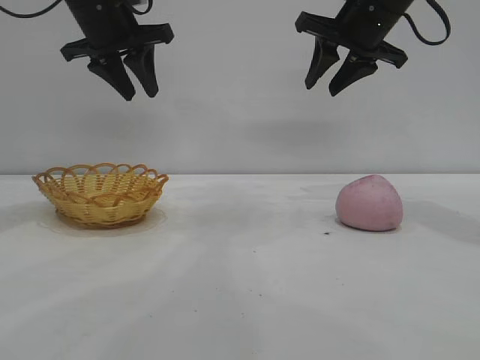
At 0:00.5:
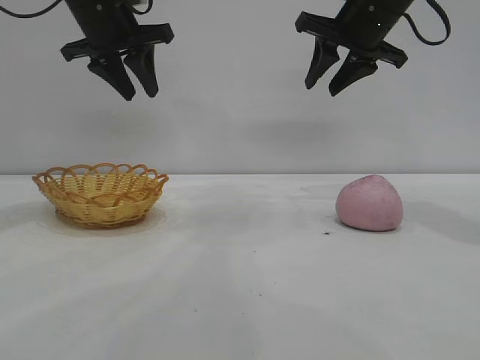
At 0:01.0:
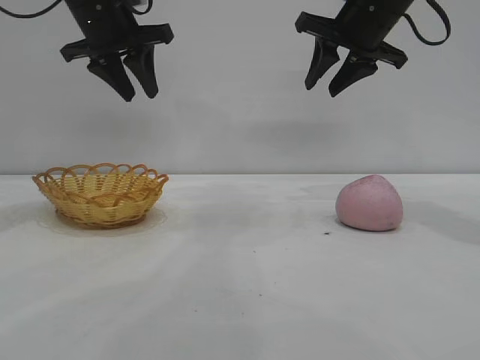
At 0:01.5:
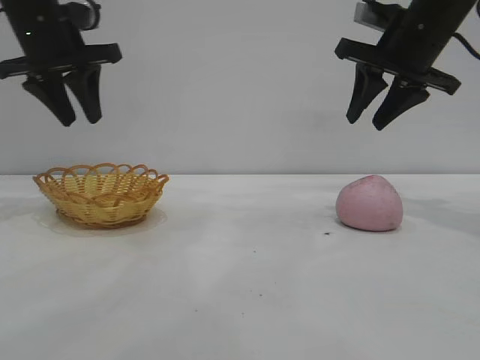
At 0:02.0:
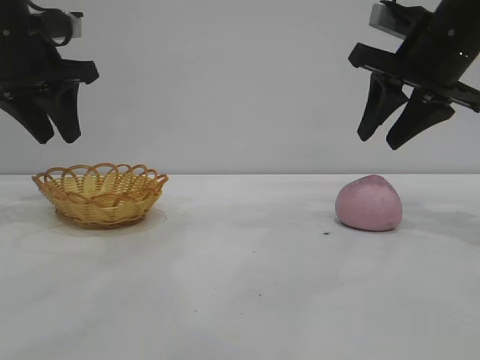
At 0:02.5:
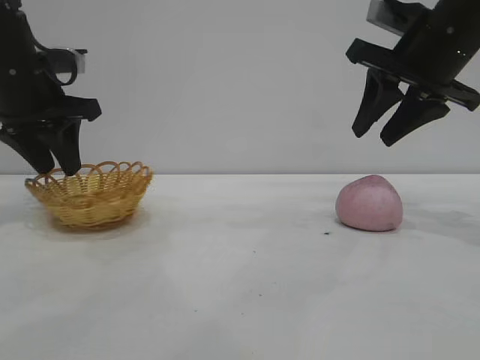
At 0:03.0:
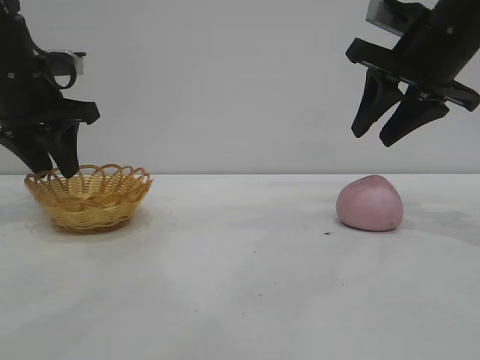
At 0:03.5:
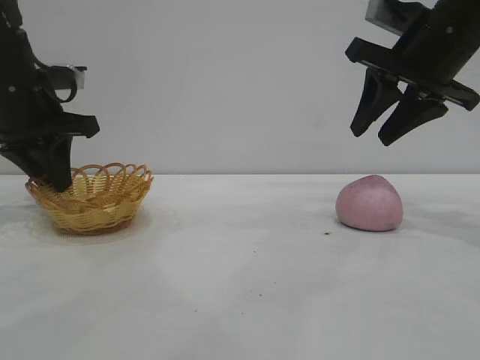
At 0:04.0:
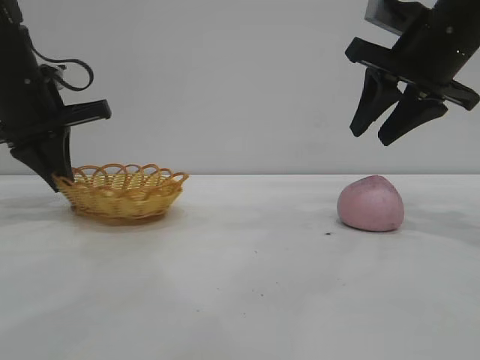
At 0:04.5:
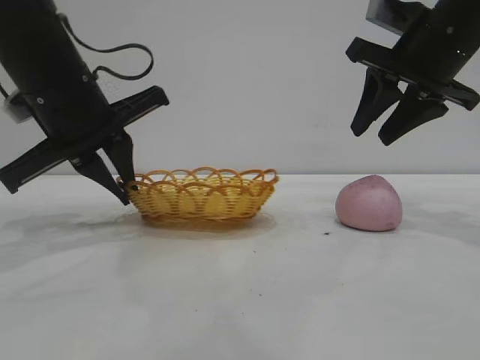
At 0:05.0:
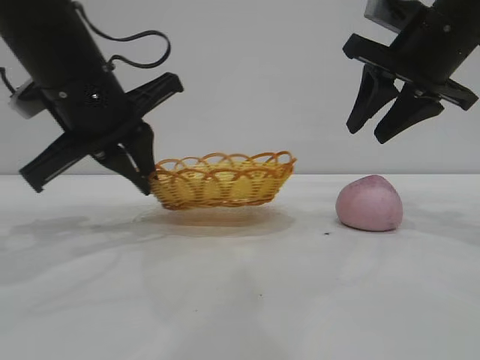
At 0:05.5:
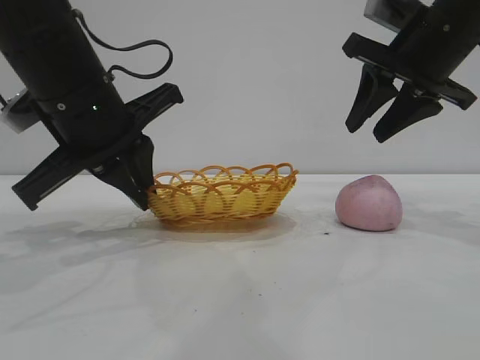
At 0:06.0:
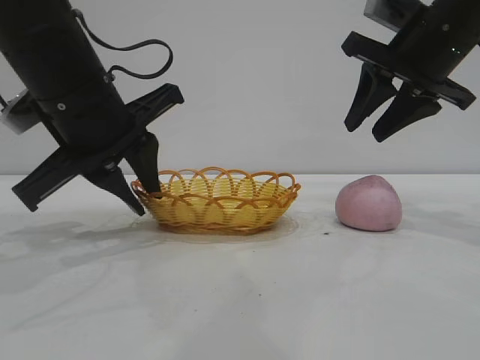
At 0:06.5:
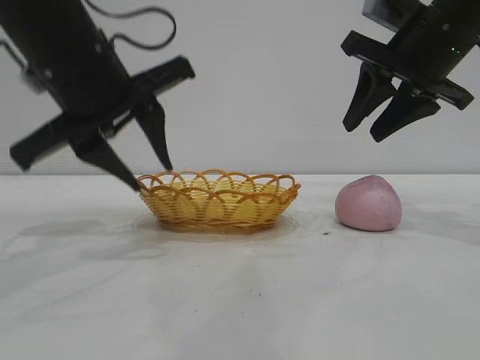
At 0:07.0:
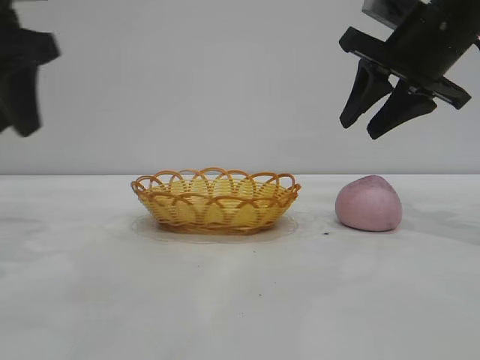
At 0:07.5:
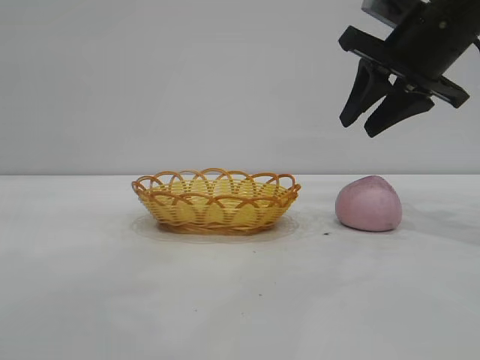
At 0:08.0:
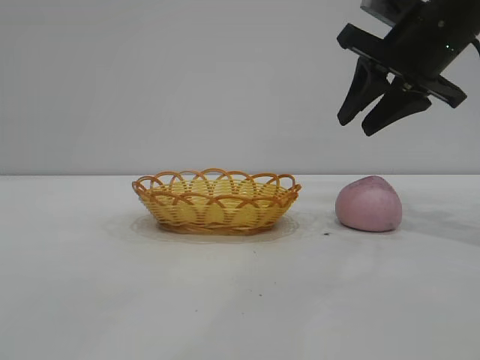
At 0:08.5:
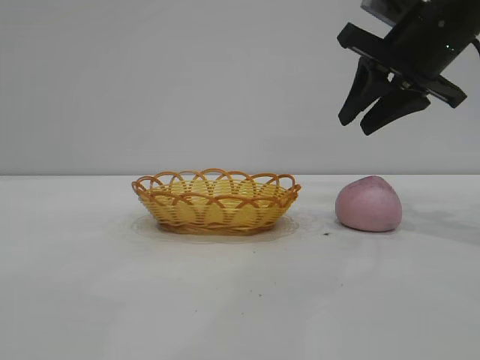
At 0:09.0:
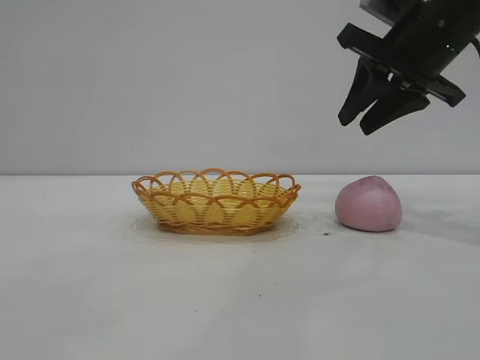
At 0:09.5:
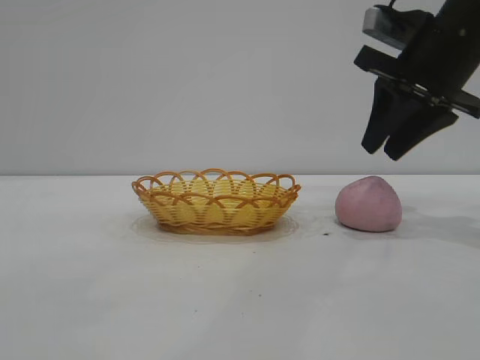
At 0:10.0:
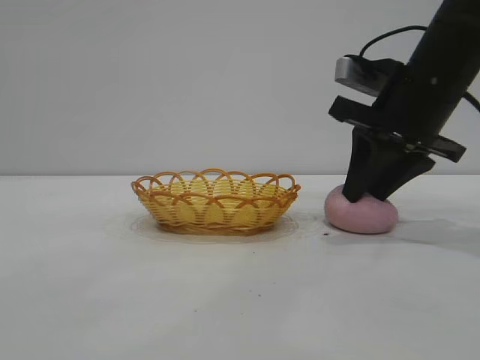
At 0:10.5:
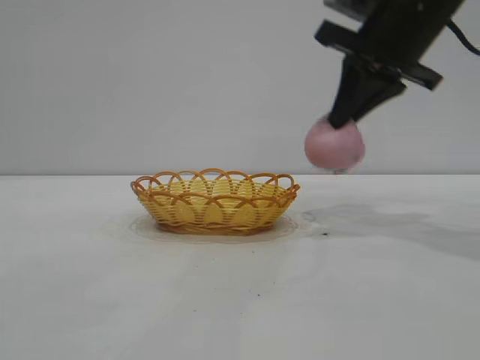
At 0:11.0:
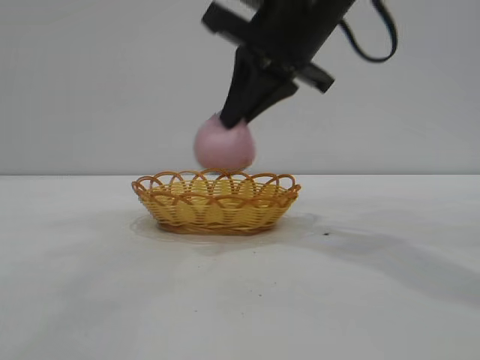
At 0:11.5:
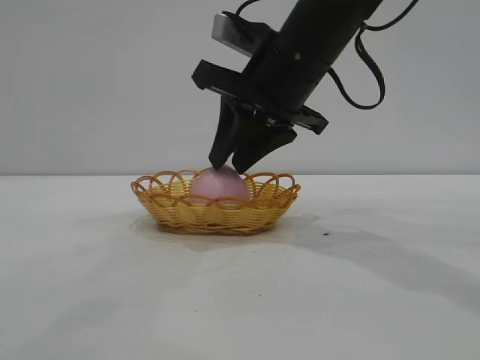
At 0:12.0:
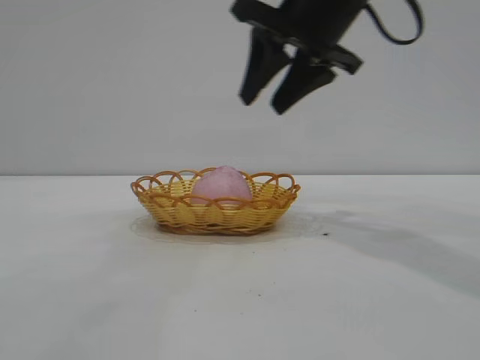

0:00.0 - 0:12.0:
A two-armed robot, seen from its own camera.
Task of the whole recording: pick up the peach and put it into the basket.
Step, 0:00.0 - 0:06.5: Move the basket to the center of view.
Step, 0:07.0 - 0:10.0: Pick up the peach.
Step, 0:11.0 - 0:11.5: place the peach into the basket.

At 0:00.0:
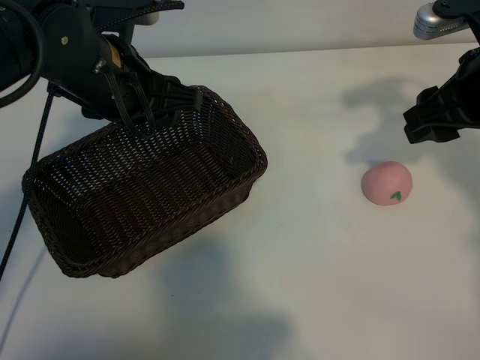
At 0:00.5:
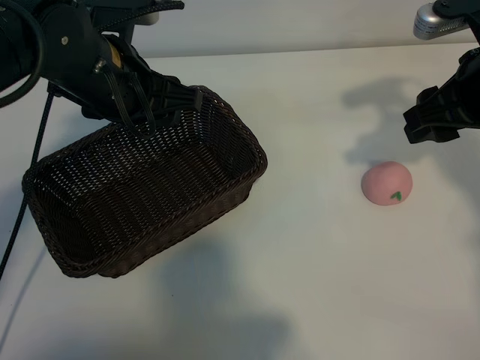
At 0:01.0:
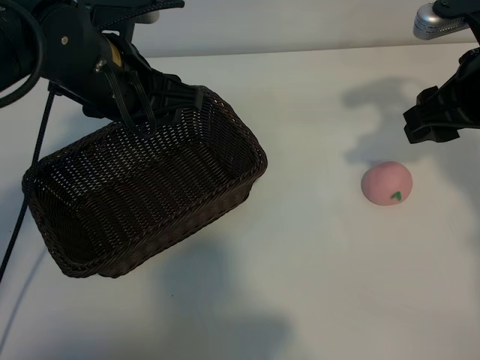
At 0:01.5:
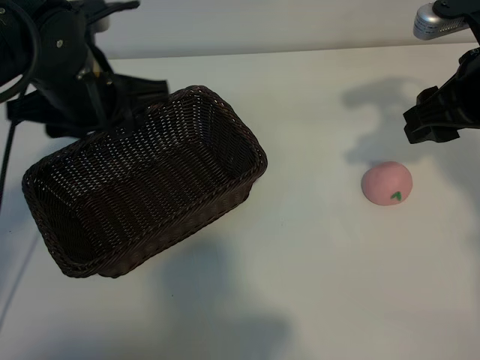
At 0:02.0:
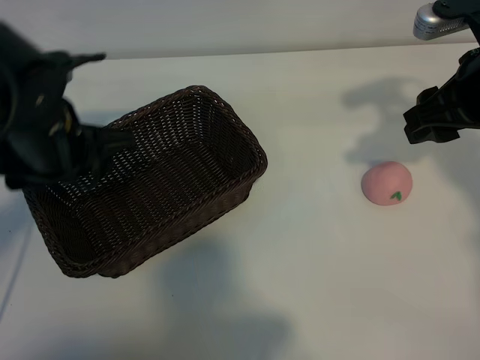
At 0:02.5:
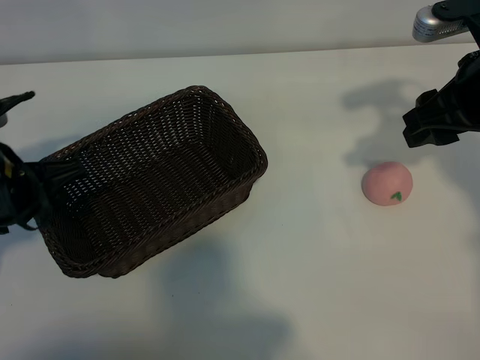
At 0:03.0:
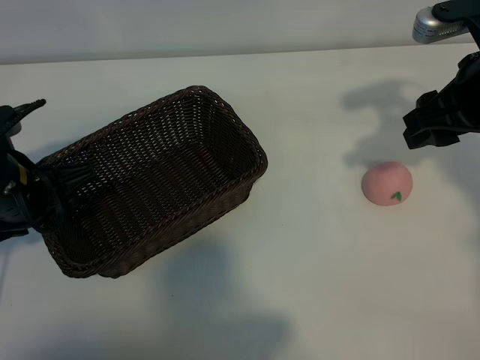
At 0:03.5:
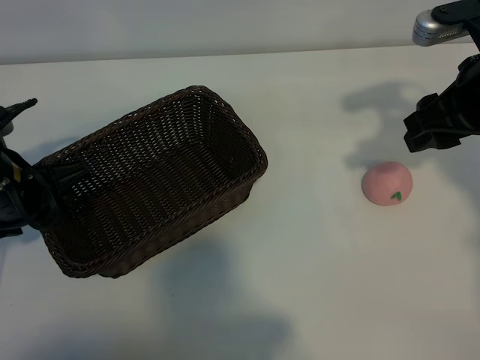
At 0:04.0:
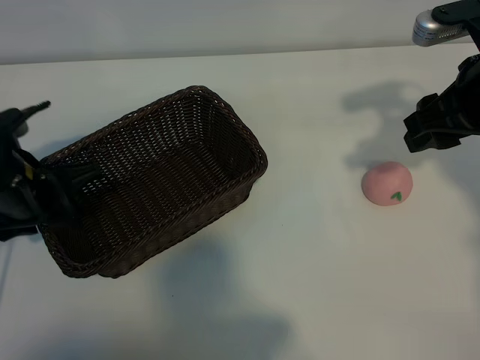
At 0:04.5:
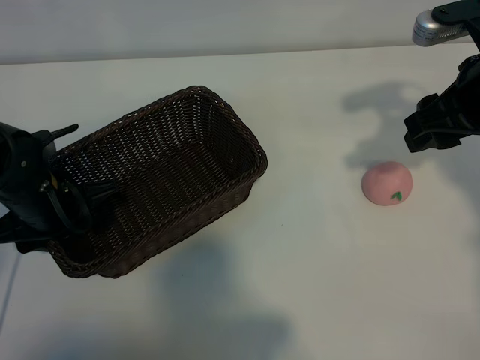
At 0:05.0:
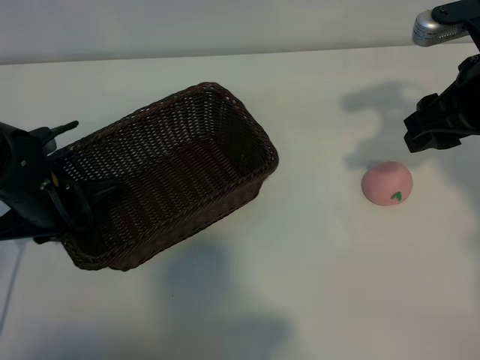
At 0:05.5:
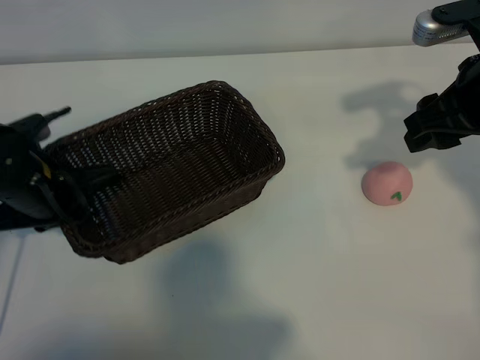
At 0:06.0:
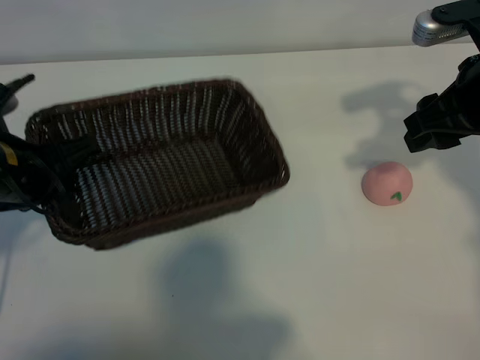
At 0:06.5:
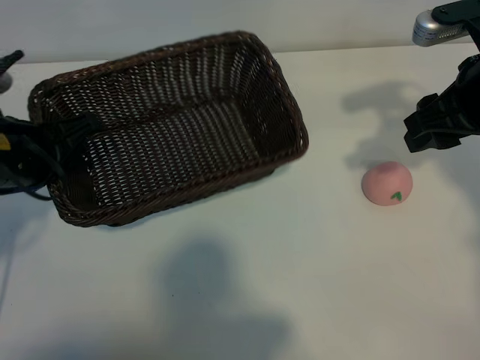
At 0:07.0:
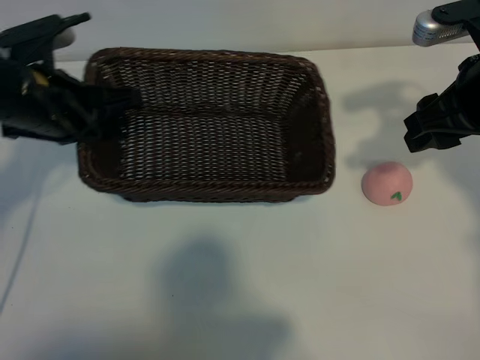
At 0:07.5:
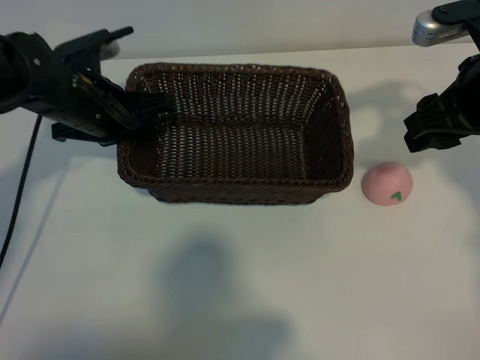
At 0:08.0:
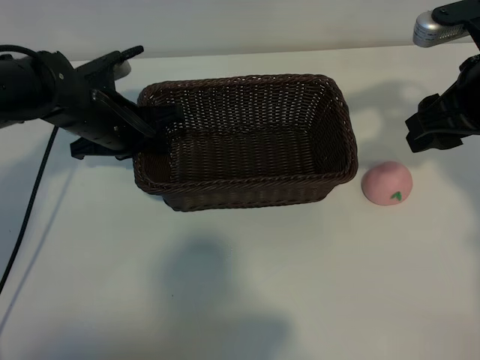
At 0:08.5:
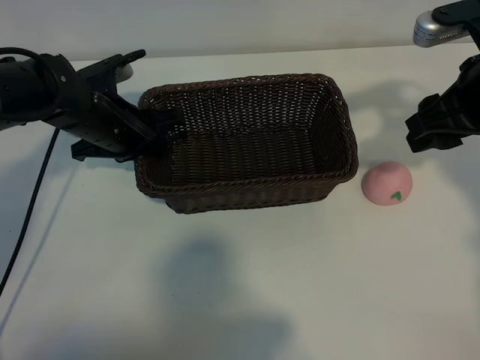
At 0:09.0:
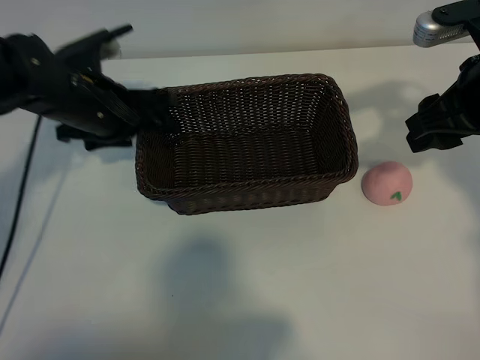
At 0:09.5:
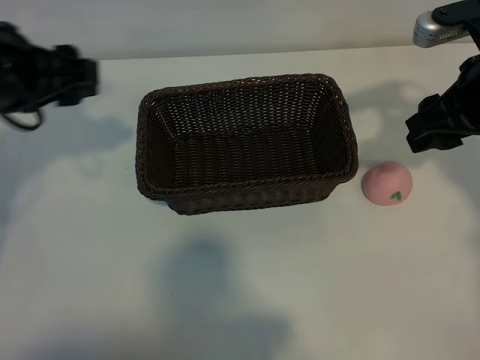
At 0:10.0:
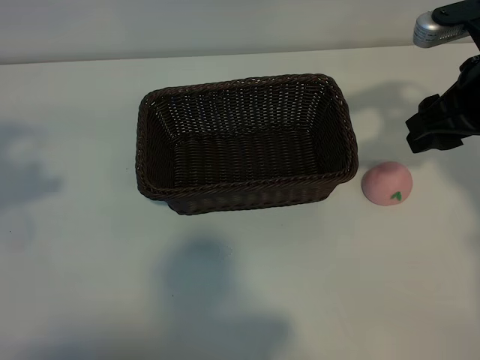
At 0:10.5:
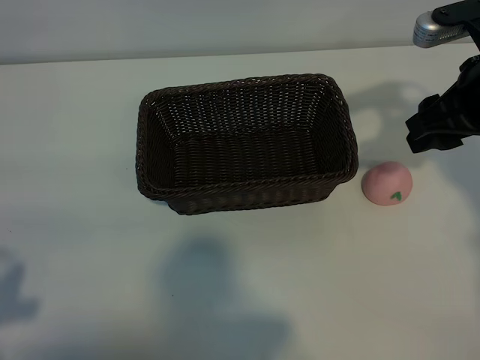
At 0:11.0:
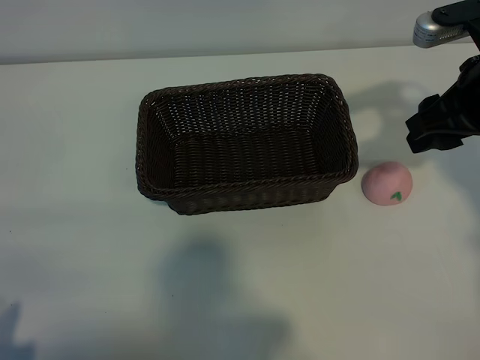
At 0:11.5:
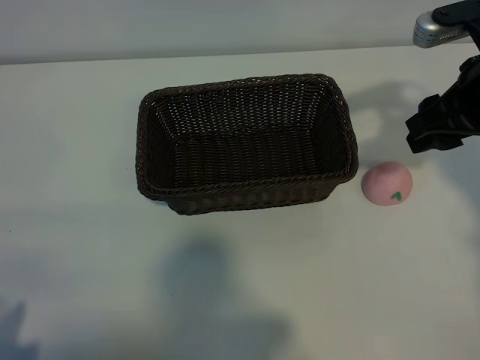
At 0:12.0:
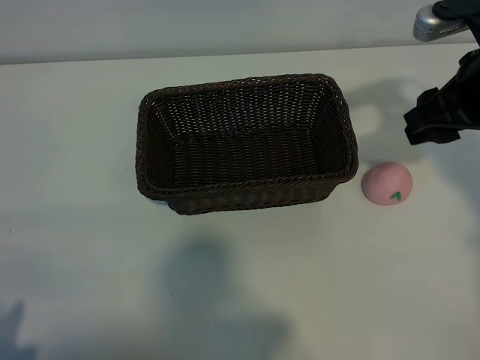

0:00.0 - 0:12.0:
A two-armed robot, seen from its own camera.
Task of the whole recording: pick up the peach and put it into the basket.
Step, 0:01.0 - 0:05.0: Grasp the basket with left gripper.
Step, 0:05.5 - 0:09.0: Place the basket in the center of view with left gripper.

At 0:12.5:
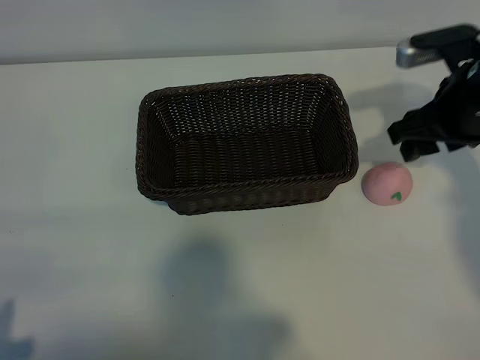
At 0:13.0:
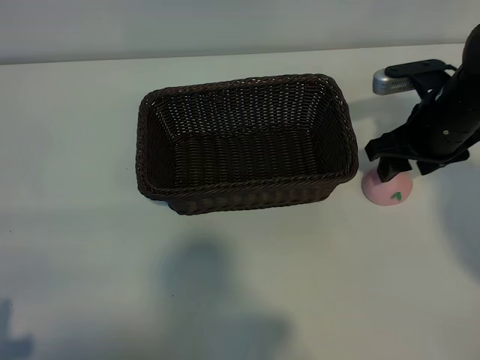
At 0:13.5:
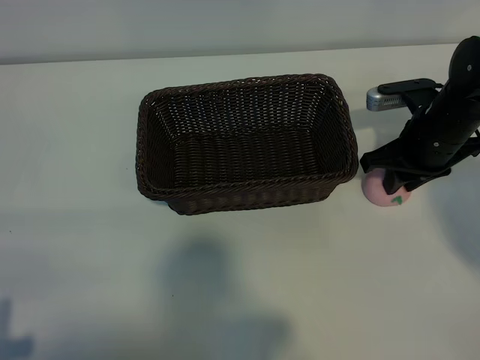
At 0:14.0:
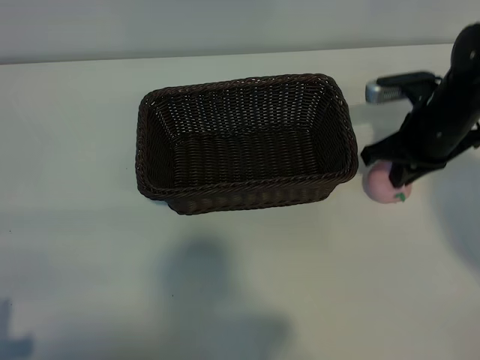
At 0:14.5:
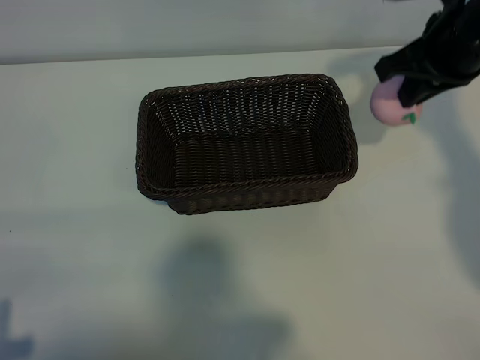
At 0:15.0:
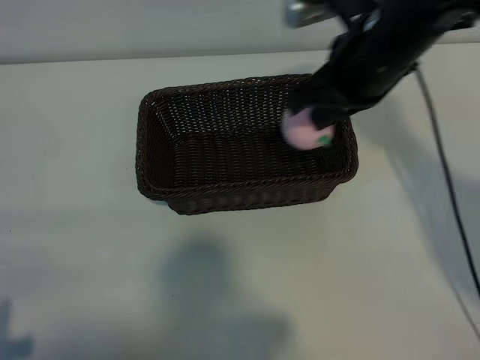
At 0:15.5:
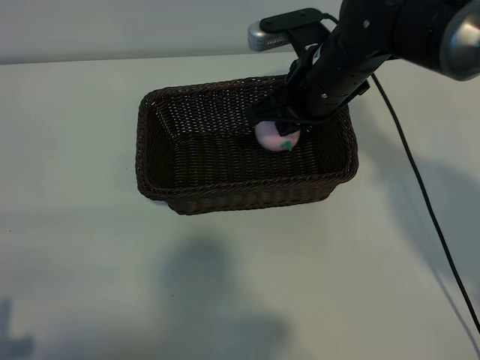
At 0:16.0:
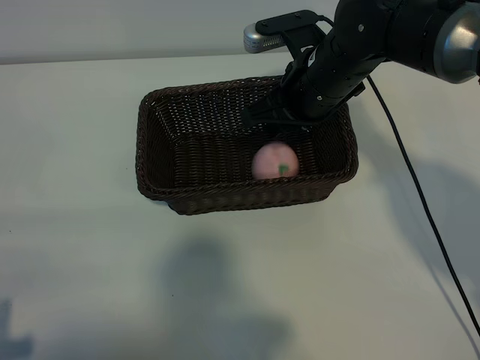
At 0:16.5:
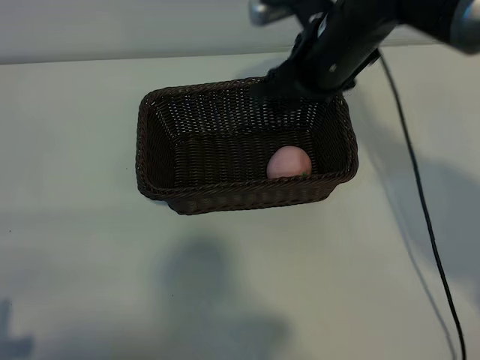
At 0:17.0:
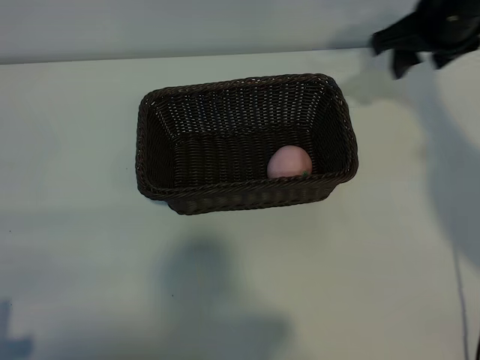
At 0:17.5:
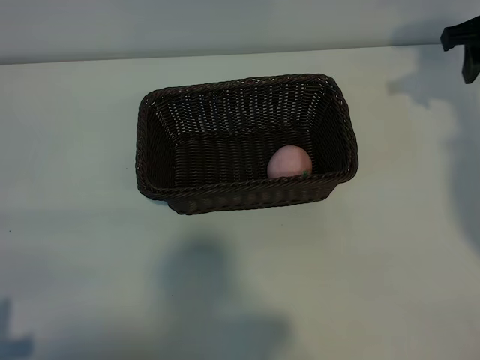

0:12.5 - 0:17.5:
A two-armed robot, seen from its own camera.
Task of the whole recording: pick up the peach and put it into the basket.
Step, 0:14.0 - 0:16.0: Place the peach in the basket with right gripper.
